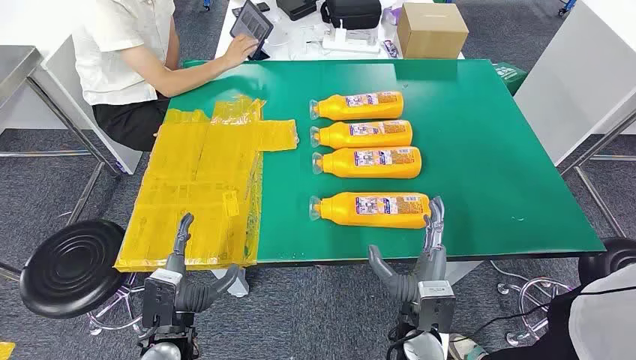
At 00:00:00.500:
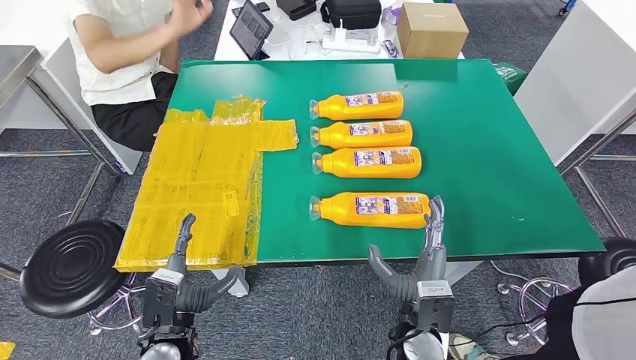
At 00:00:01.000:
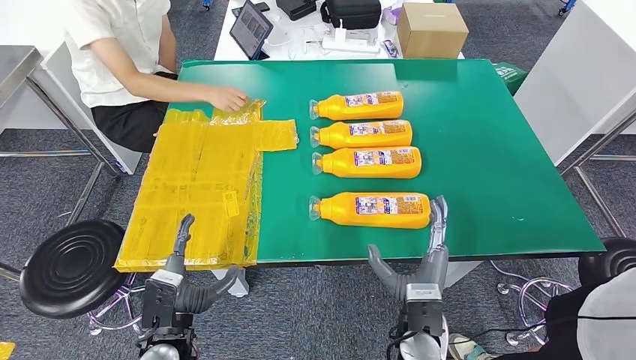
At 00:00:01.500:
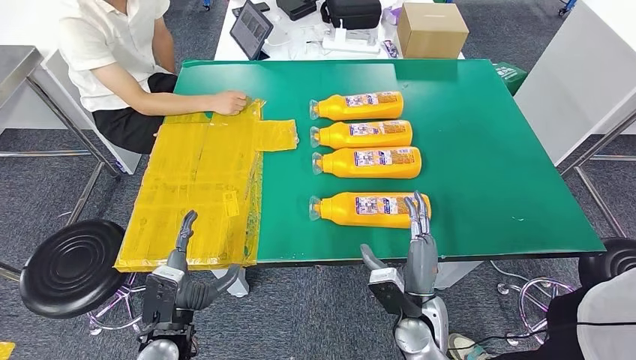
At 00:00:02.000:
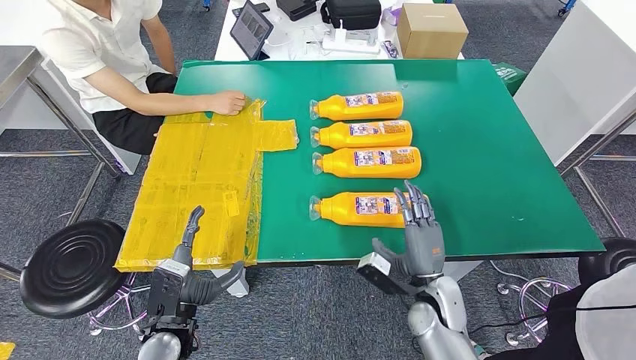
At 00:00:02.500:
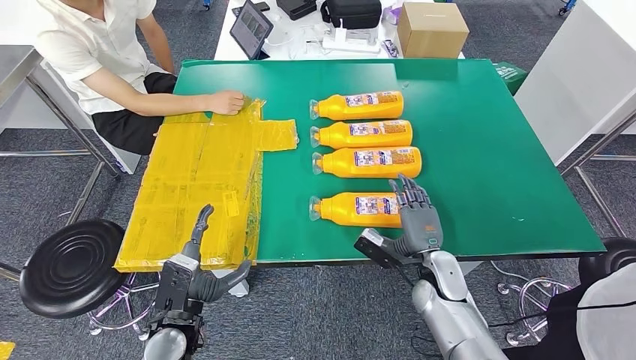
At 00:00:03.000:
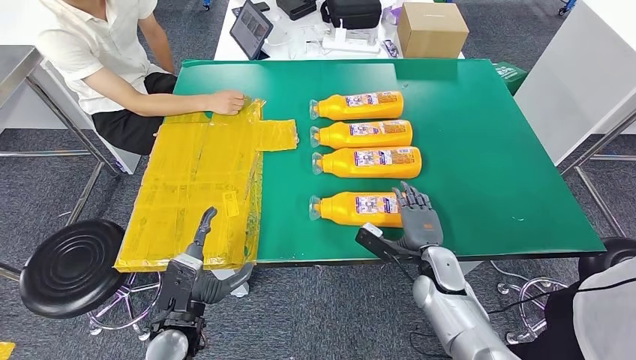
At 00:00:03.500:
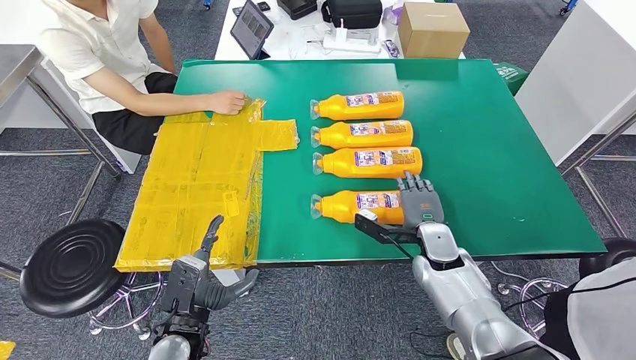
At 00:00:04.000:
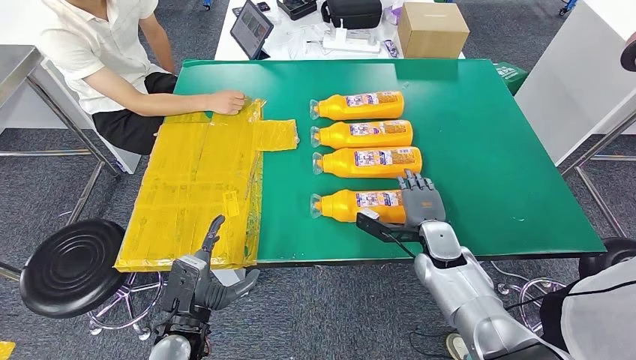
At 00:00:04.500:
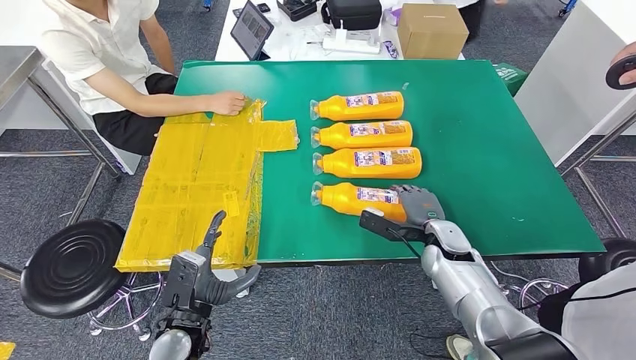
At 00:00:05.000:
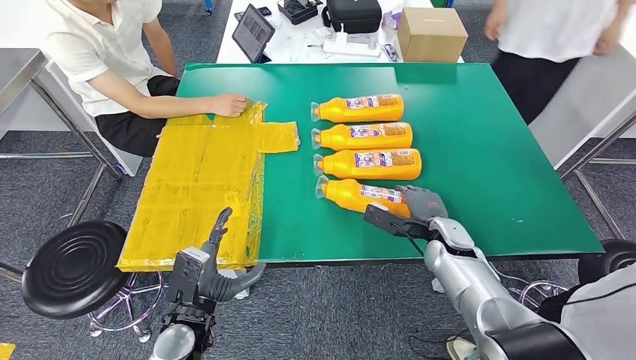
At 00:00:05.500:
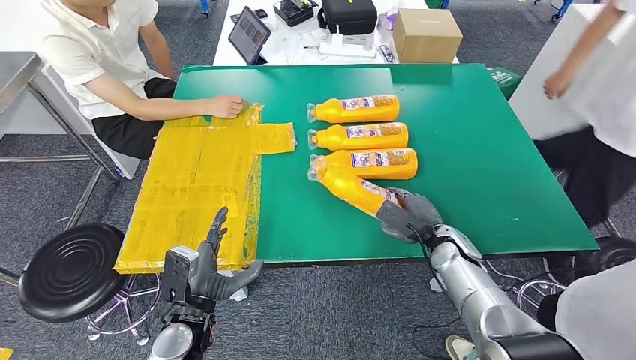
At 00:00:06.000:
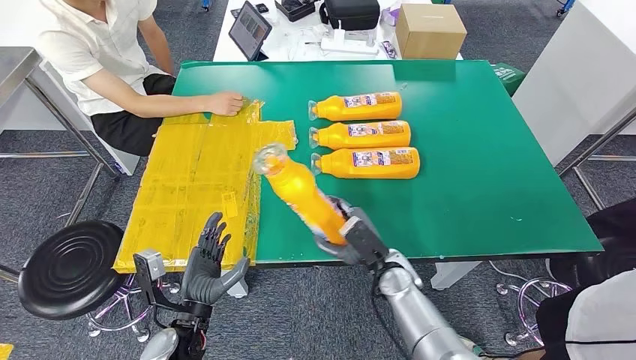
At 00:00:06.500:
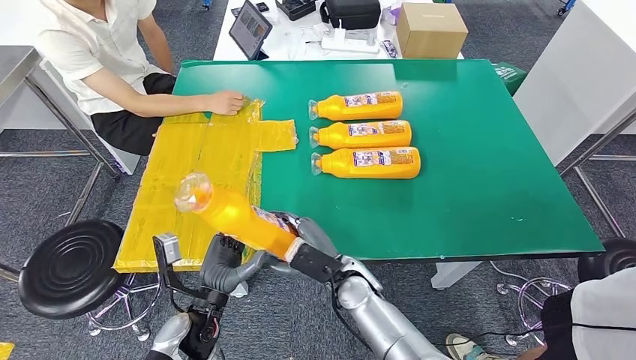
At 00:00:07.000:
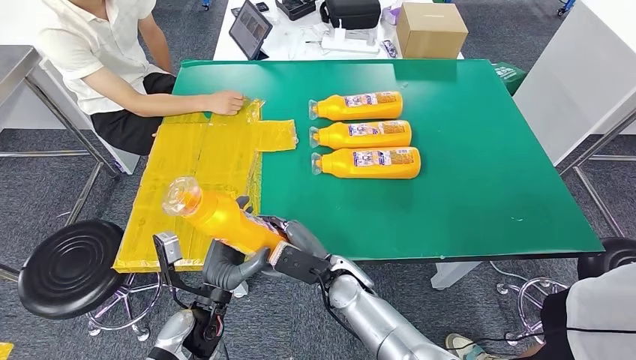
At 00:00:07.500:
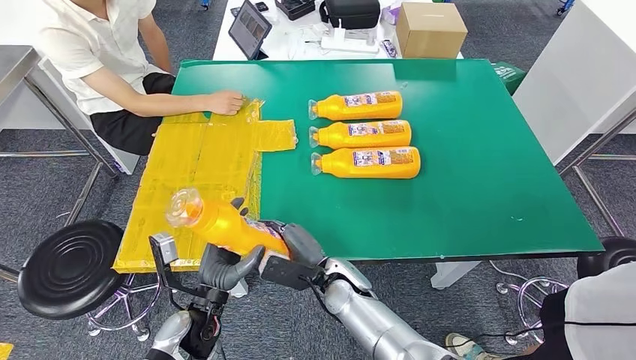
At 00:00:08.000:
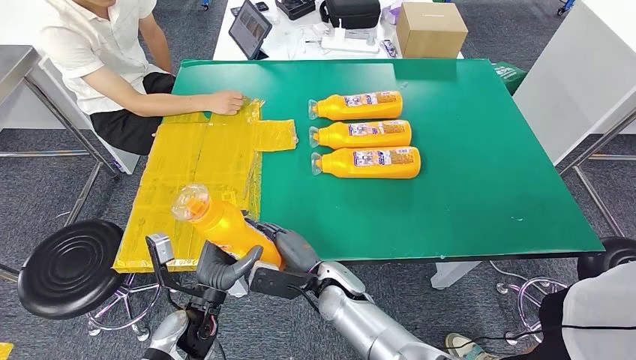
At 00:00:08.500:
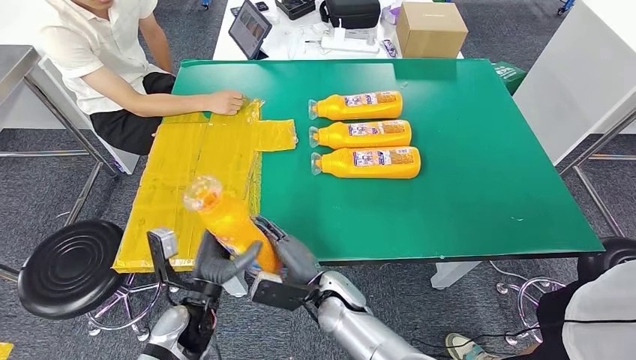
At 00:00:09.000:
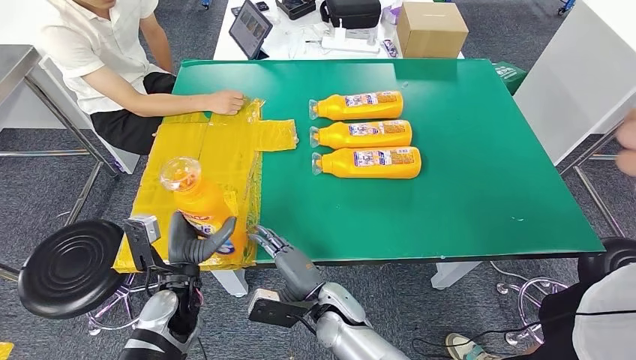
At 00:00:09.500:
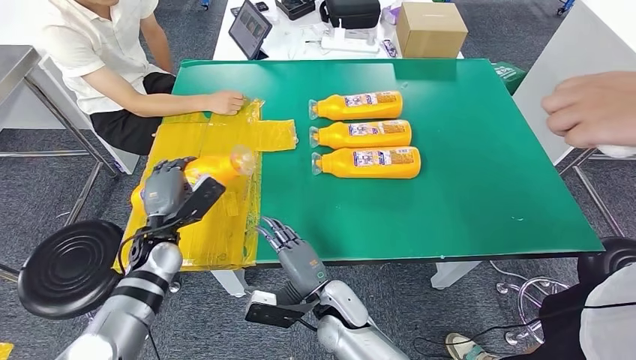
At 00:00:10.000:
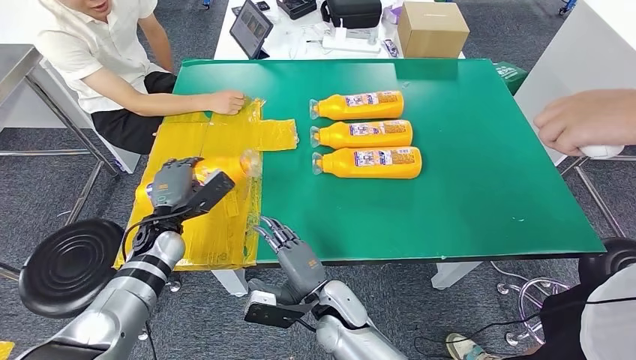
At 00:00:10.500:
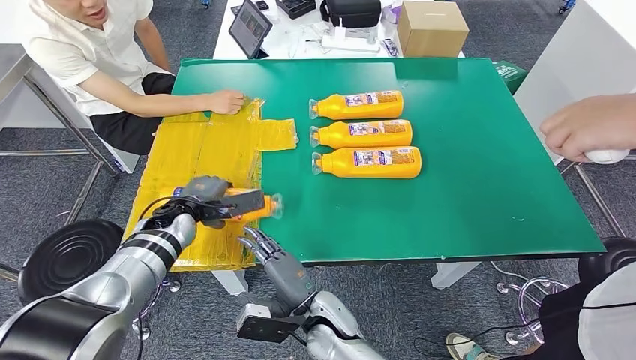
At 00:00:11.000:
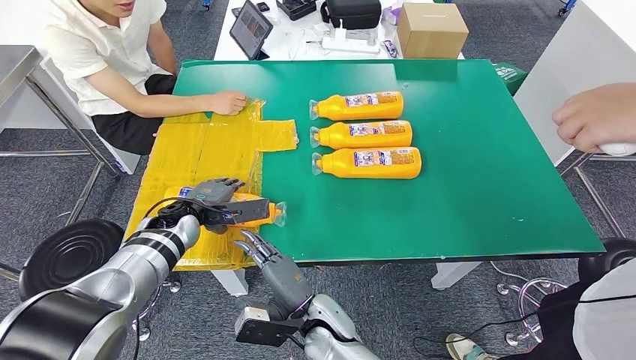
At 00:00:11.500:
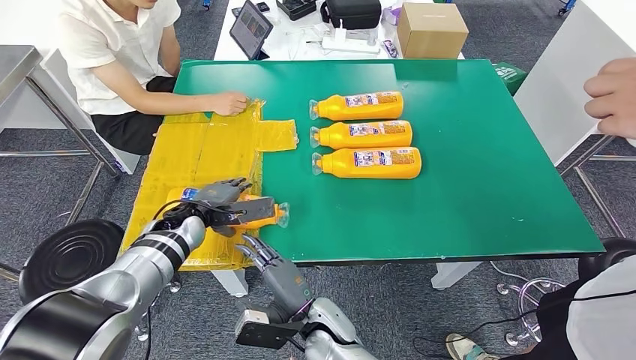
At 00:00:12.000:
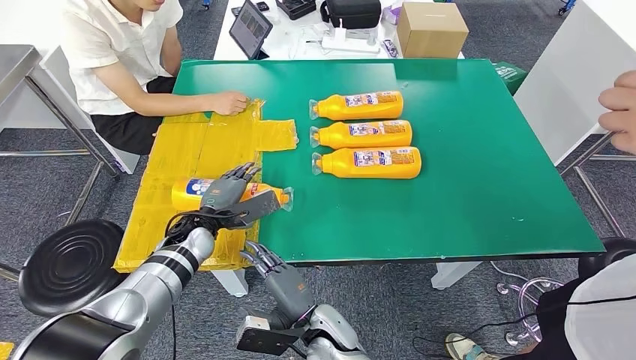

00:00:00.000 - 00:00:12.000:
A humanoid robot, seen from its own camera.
Step, 00:00:00.000 - 00:00:06.500: Take the fast-moving consumer goods bottle from the table.
00:00:02.000 - 00:00:04.000: The right hand travels forward by some 10 cm.
00:00:06.000 - 00:00:08.000: The right hand goes approximately 10 cm to the left.
00:00:08.000 - 00:00:10.000: The left hand moves forward and to the left, roughly 20 cm.
00:00:10.000 - 00:00:12.000: The left hand shifts some 5 cm to the right.

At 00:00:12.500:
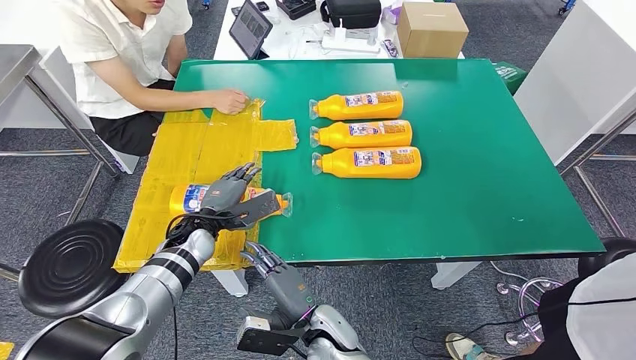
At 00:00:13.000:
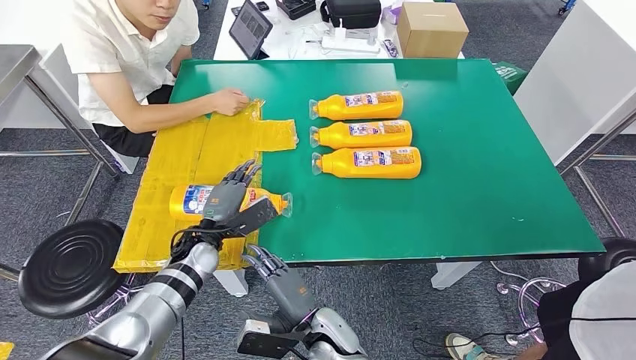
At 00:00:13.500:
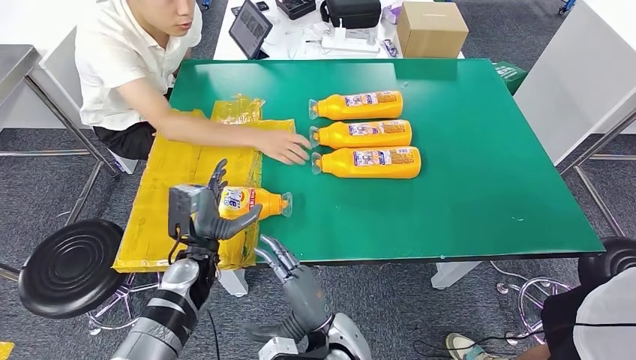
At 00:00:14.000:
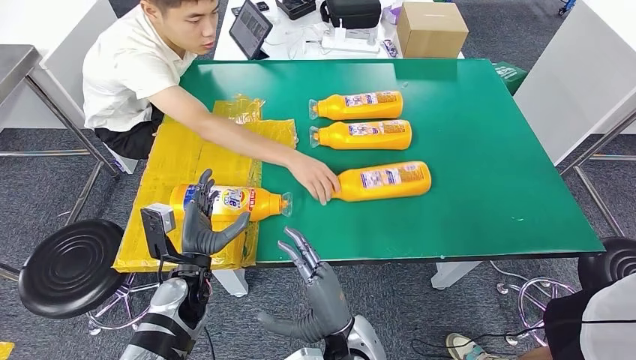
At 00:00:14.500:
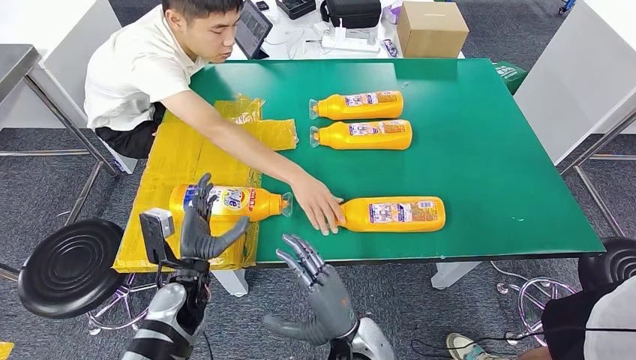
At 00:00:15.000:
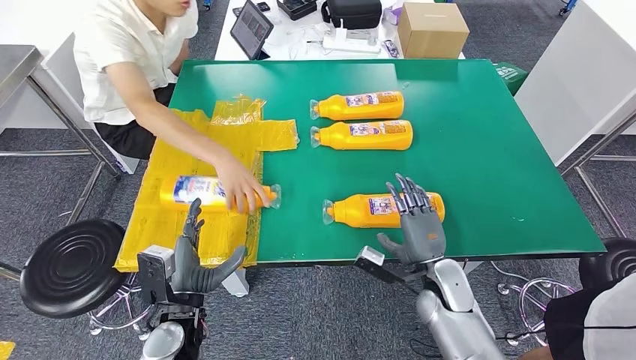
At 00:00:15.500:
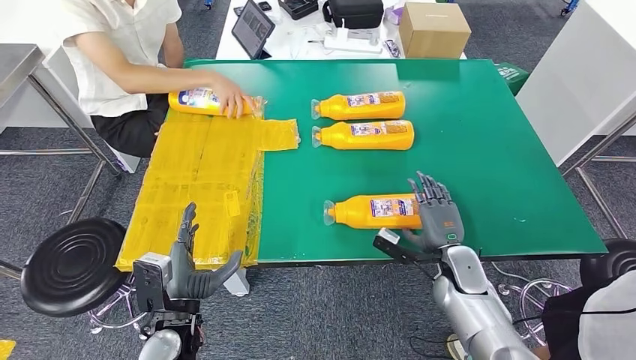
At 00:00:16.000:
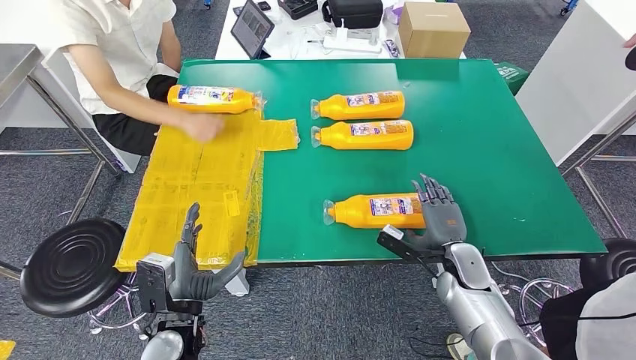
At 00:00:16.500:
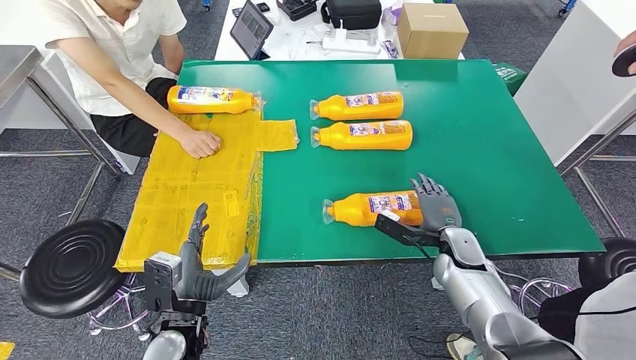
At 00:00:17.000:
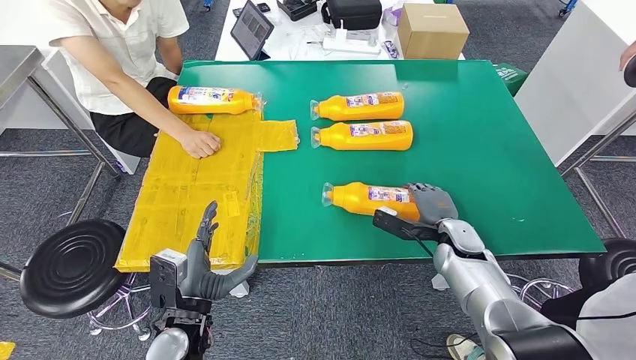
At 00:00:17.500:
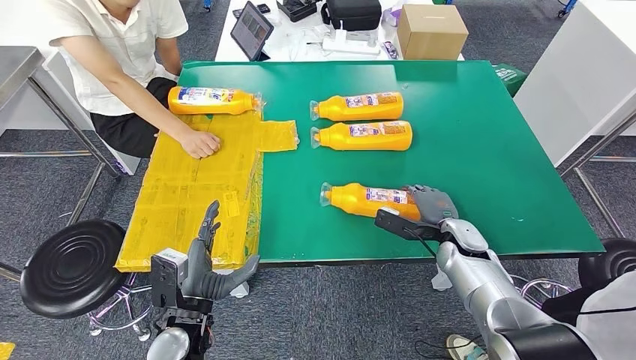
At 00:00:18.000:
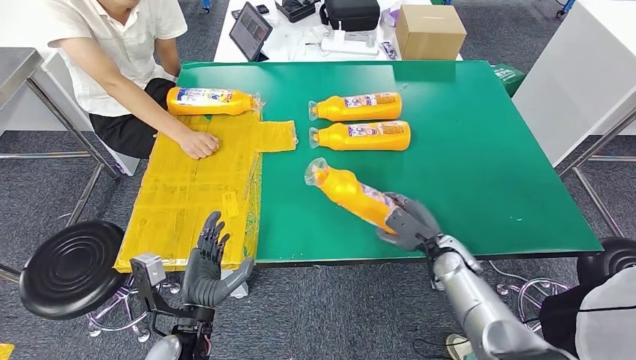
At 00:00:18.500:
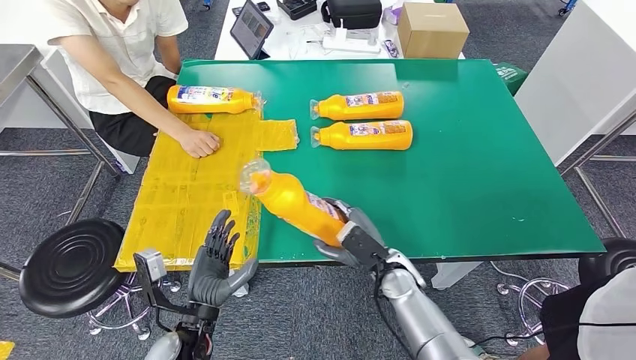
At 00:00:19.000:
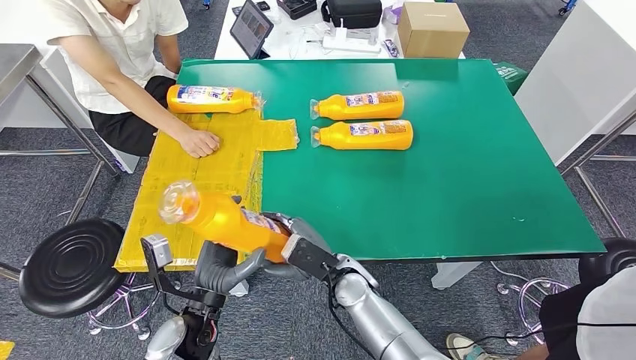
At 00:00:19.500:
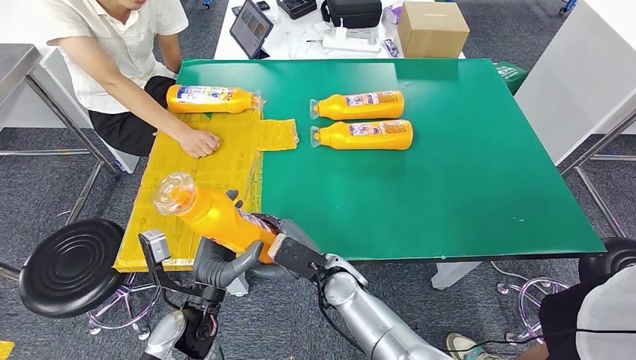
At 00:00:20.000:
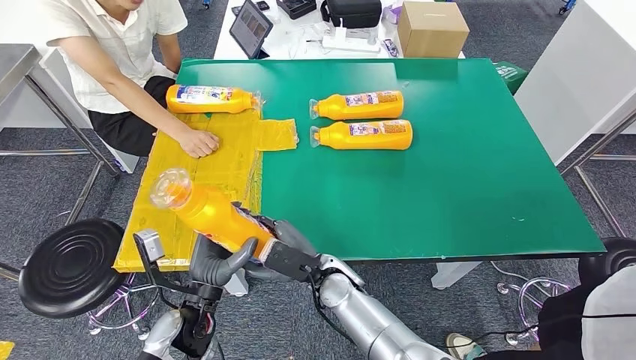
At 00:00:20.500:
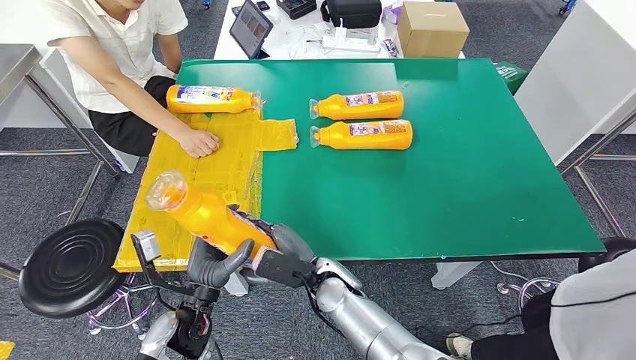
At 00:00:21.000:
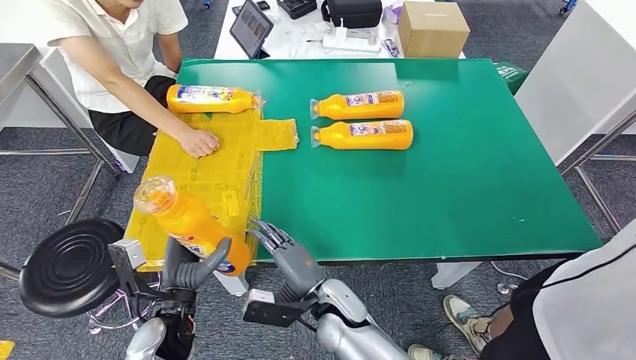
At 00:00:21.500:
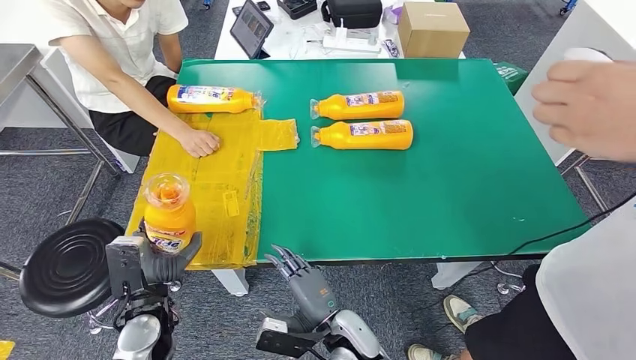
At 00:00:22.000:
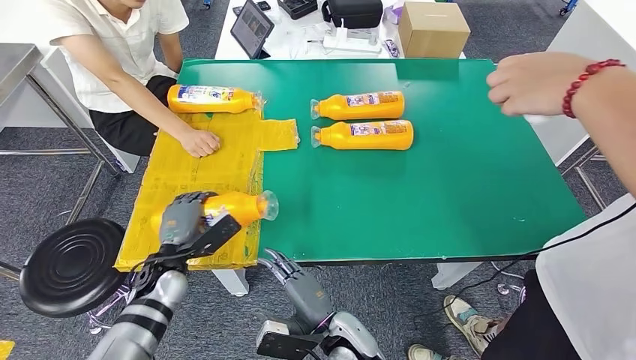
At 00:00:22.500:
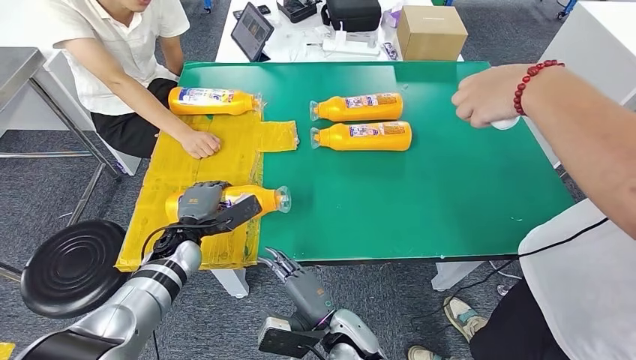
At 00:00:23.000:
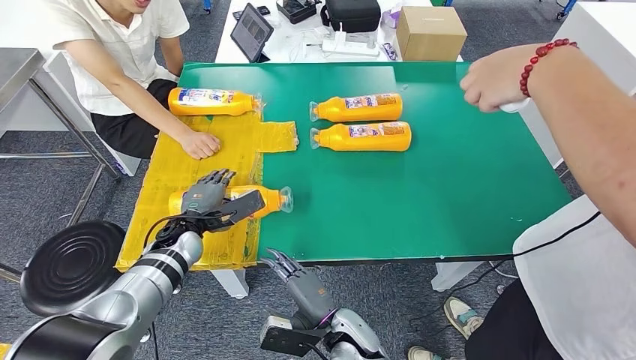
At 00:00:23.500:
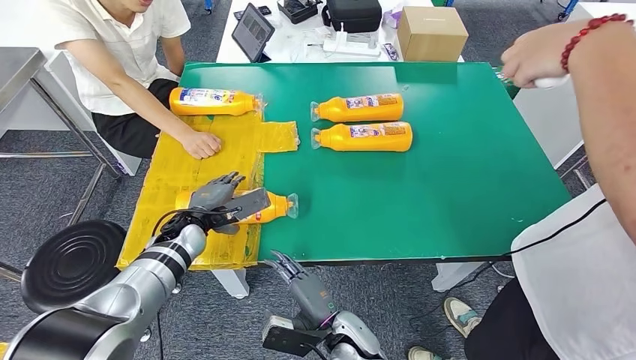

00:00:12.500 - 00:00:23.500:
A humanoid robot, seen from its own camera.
Step, 00:00:14.500 - 00:00:18.500: Pick up the fast-moving consumer goods bottle from the table.
